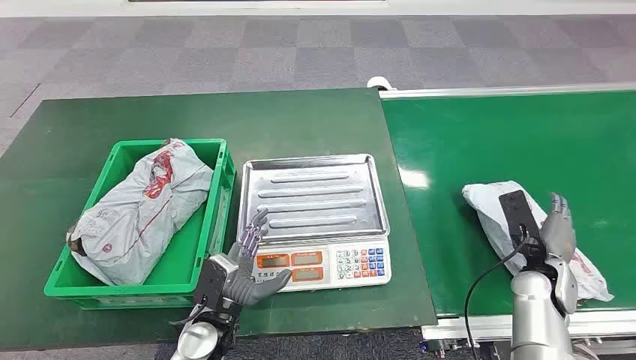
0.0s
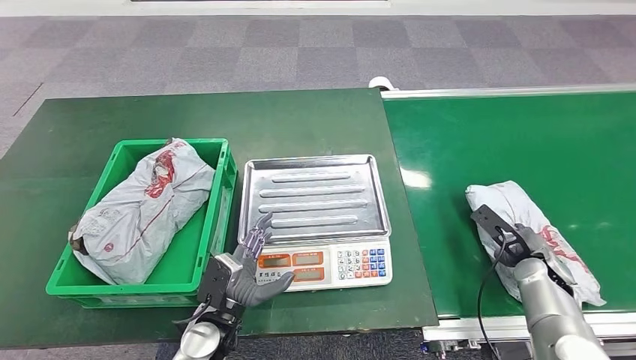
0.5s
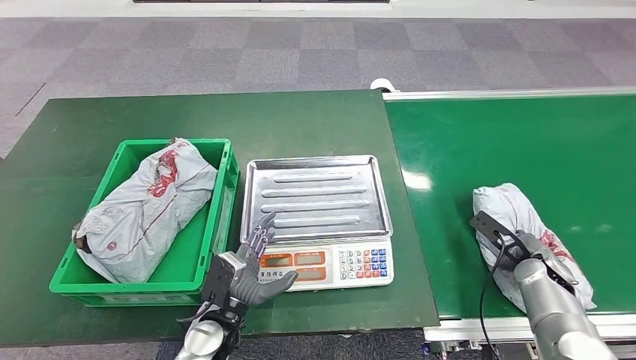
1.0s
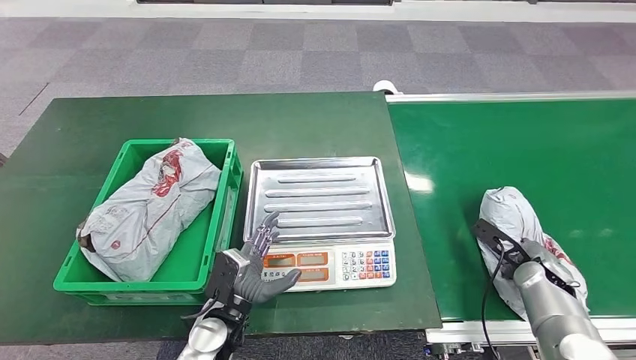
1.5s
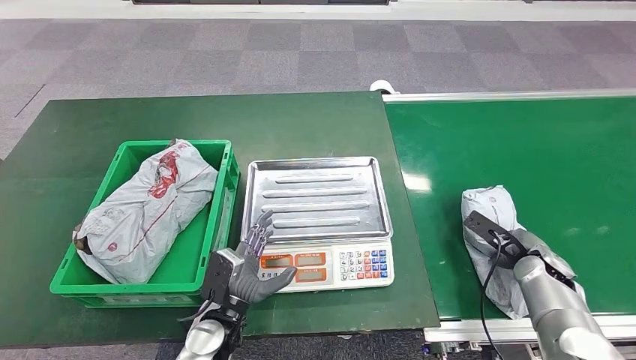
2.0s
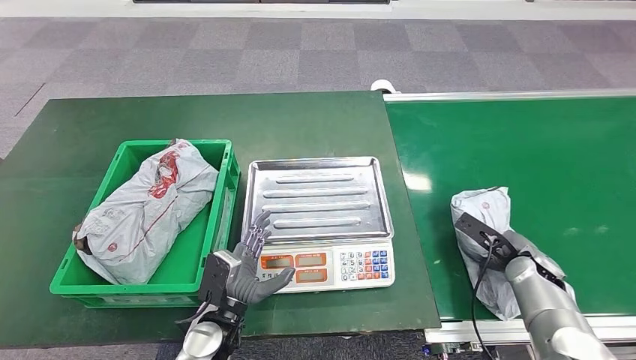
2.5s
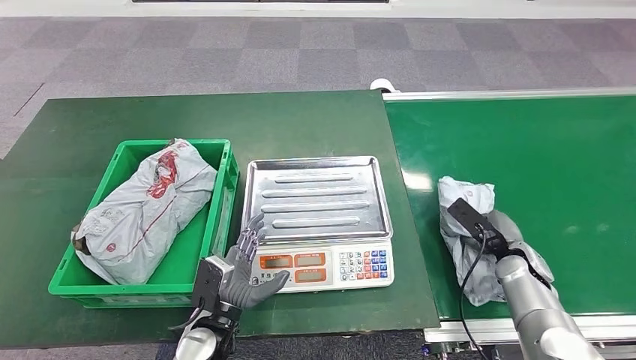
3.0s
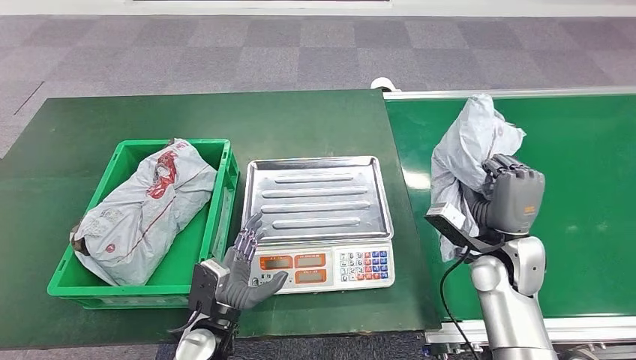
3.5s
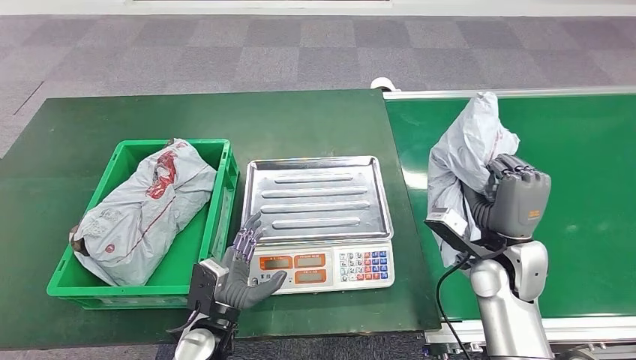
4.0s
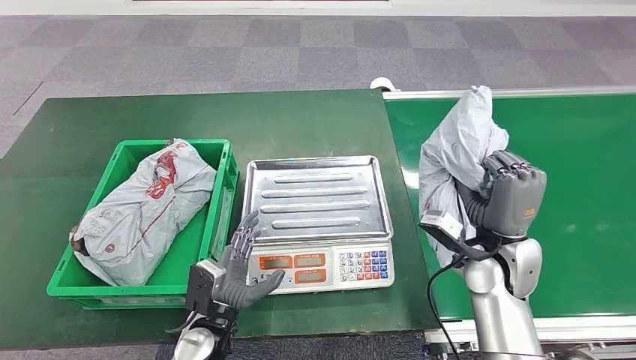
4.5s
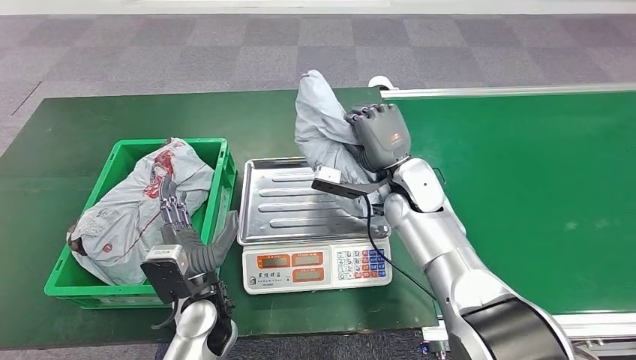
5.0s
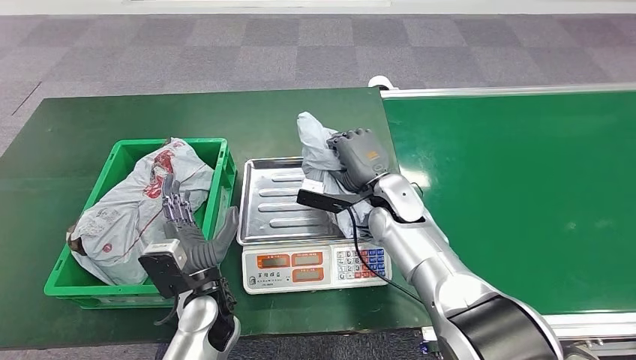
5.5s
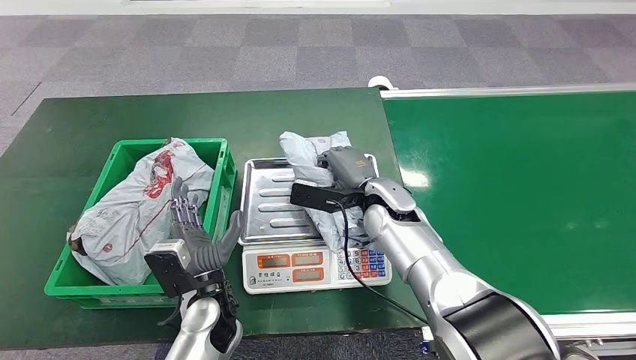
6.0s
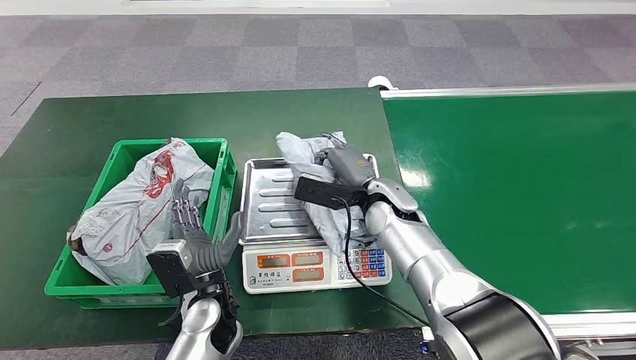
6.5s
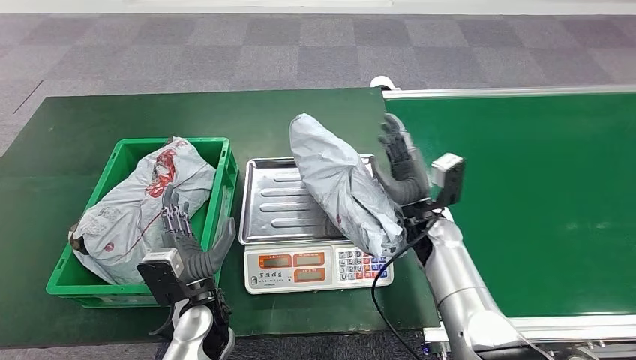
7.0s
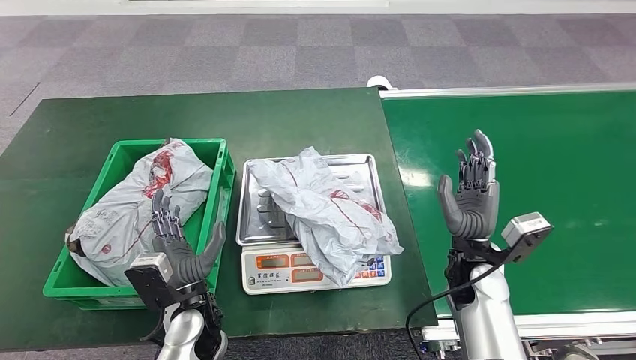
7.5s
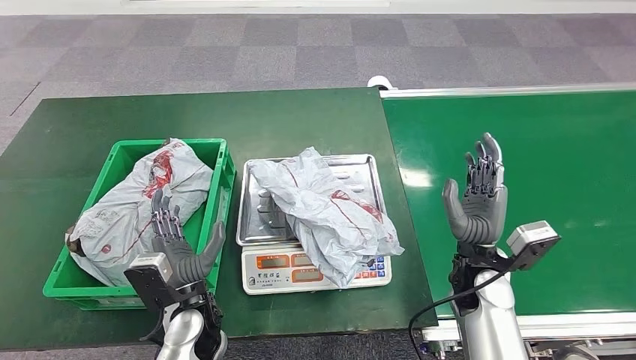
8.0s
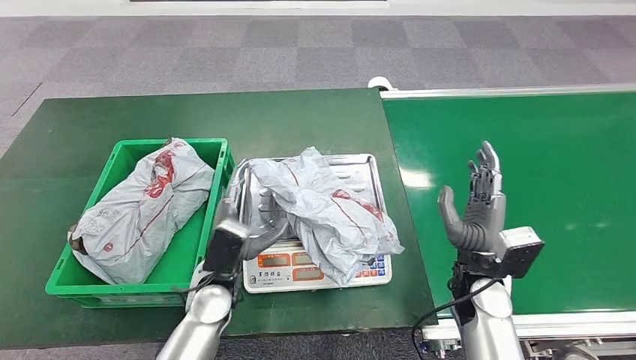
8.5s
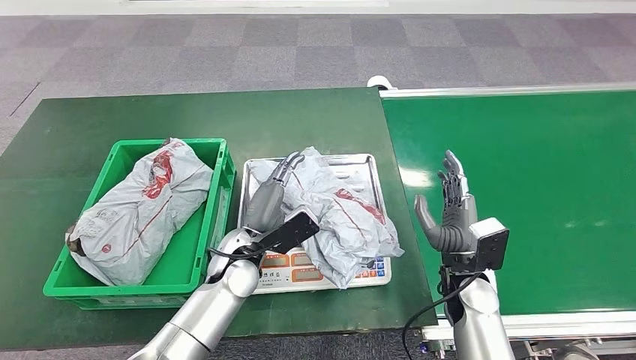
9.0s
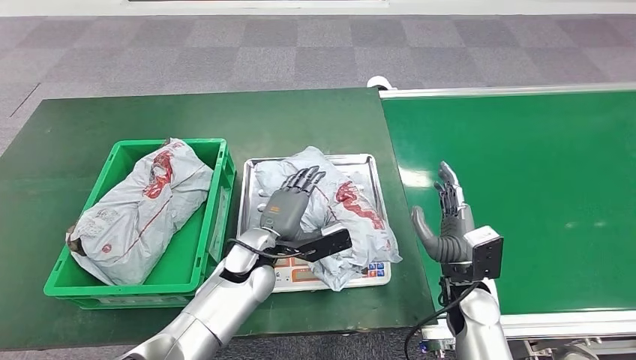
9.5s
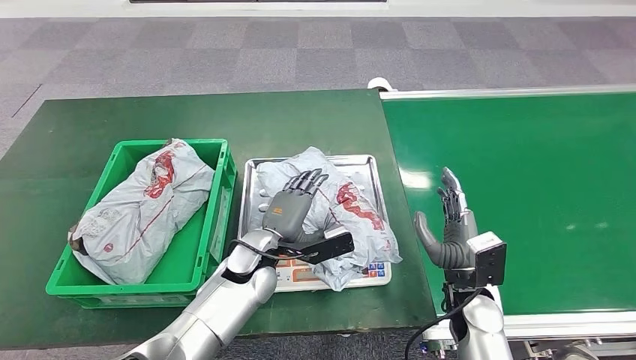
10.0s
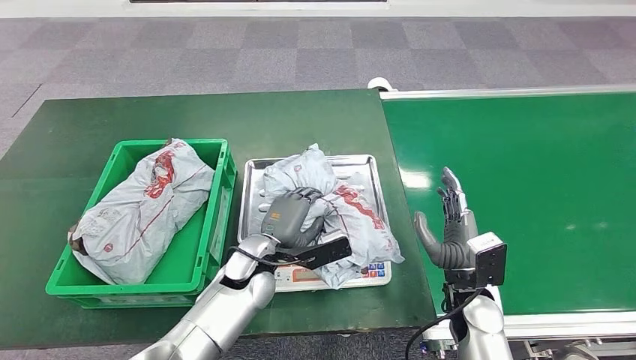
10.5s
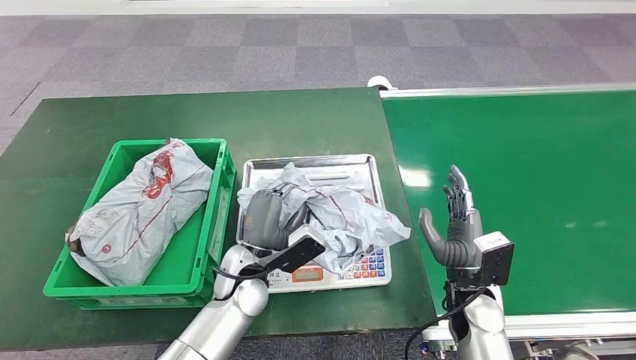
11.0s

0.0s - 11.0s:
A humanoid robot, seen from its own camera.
Step, 0.0s - 4.0s: Pick up the package from the conveyor belt.
Step, 4.5s - 7.5s: Place the package onto the inbound machine.
7.5s - 9.0s: The left hand shifts approximately 10 cm forward and to the right.

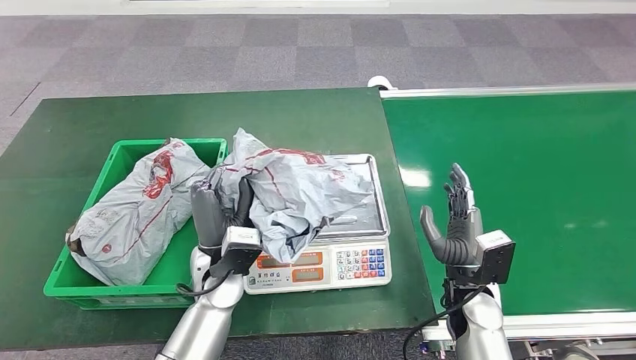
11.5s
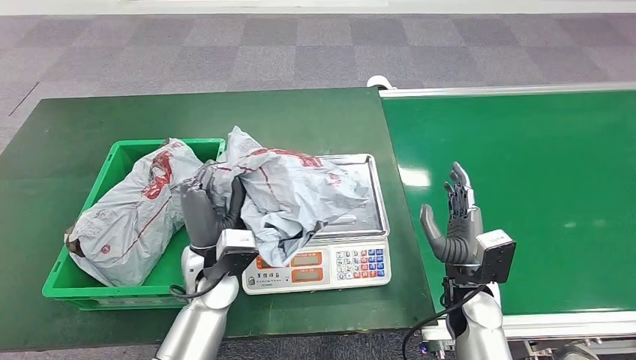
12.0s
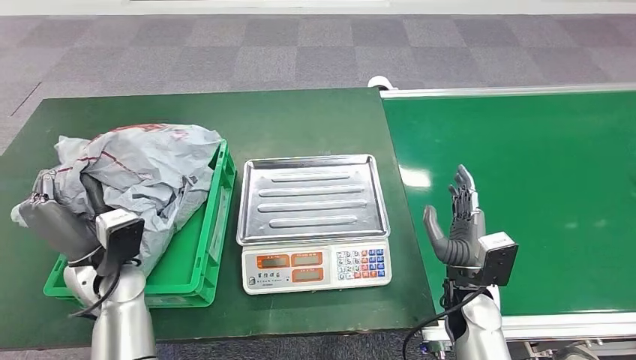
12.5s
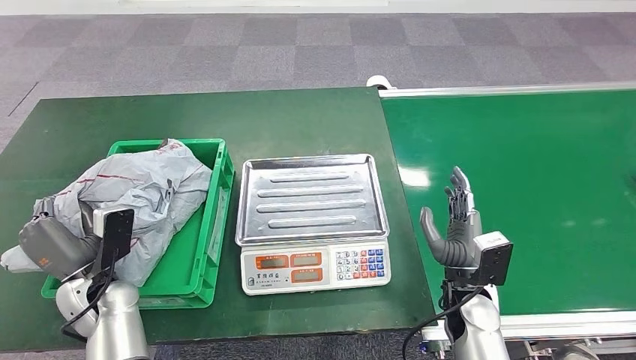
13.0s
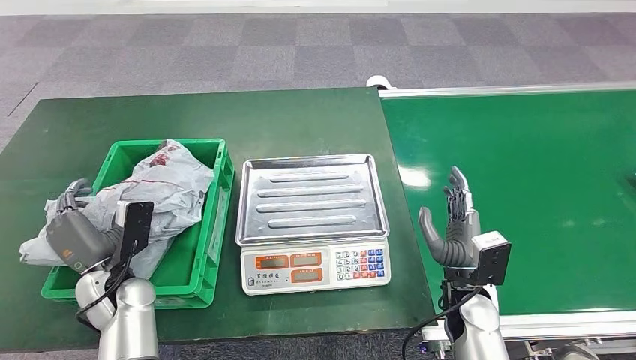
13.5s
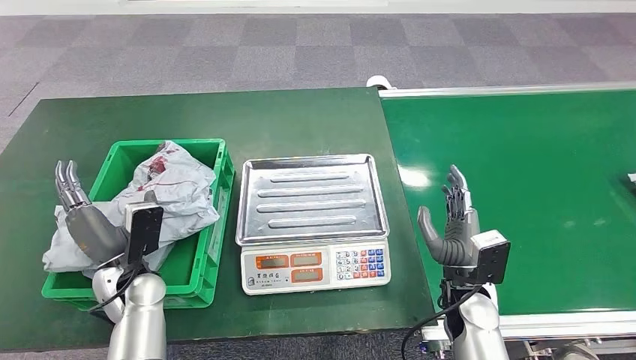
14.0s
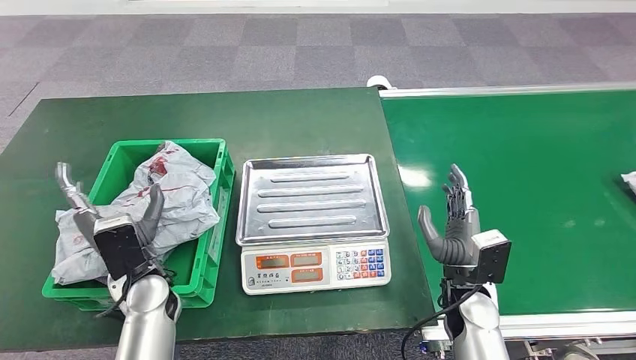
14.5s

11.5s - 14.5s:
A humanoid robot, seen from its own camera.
Step, 12.5s - 14.0s: Place the package into the parcel locker.
11.5s - 13.0s: The left hand travels to the left by about 20 cm.
13.0s - 14.5s: The left hand is displaced to the right by roughly 10 cm.
